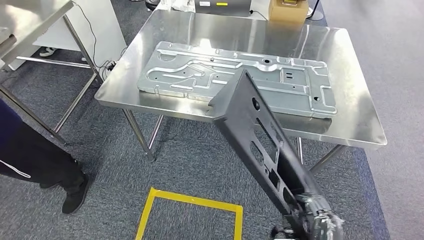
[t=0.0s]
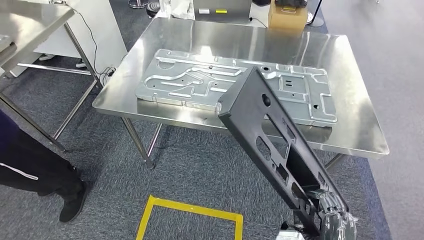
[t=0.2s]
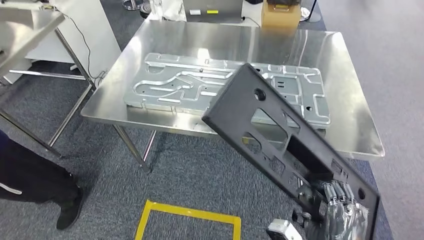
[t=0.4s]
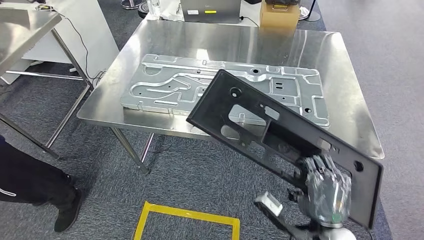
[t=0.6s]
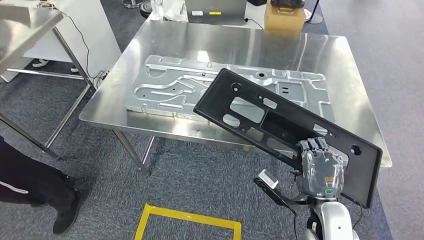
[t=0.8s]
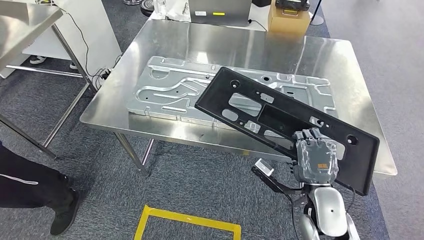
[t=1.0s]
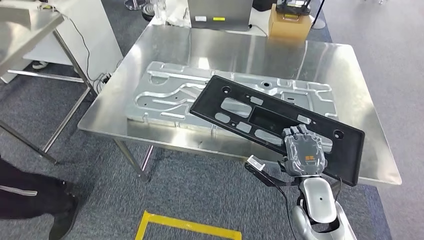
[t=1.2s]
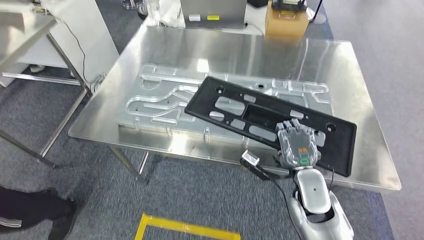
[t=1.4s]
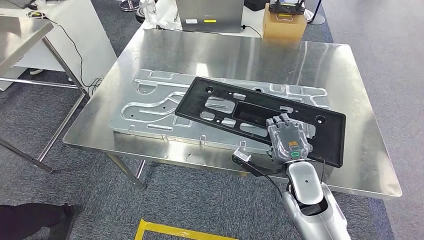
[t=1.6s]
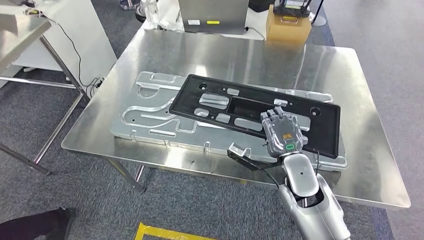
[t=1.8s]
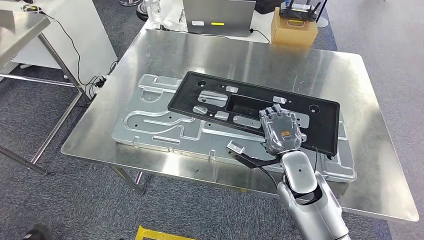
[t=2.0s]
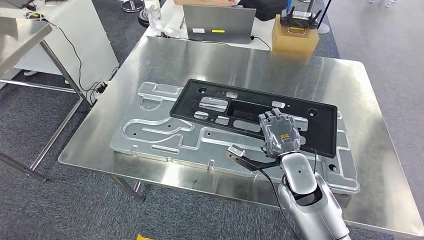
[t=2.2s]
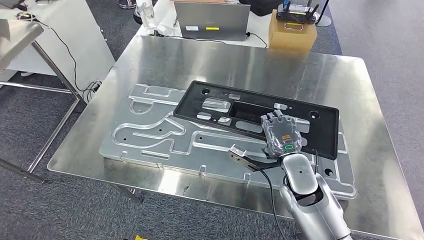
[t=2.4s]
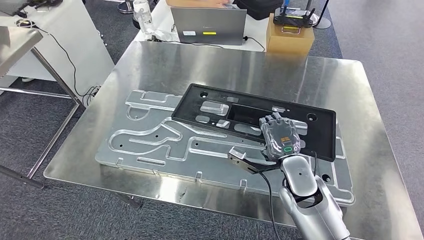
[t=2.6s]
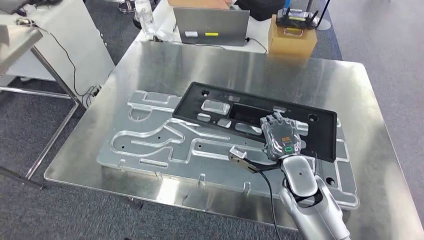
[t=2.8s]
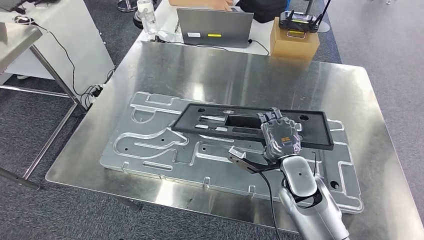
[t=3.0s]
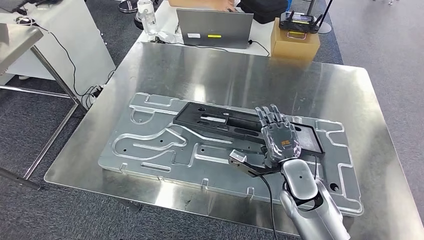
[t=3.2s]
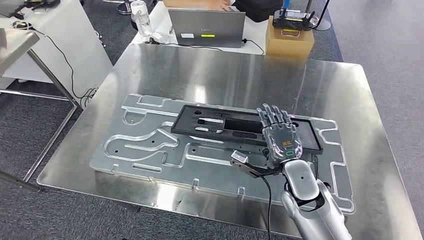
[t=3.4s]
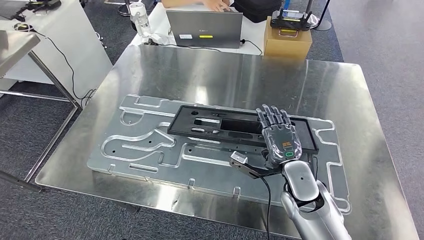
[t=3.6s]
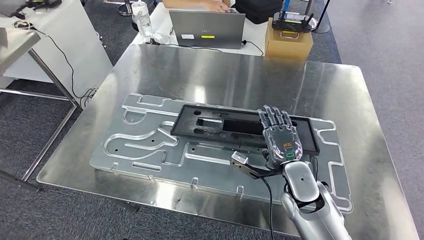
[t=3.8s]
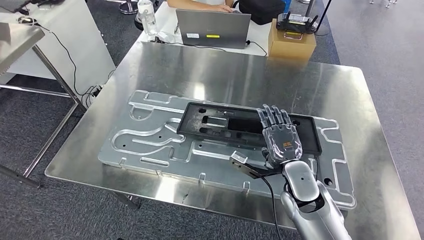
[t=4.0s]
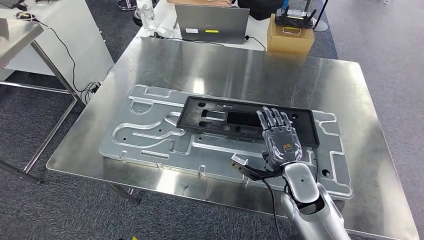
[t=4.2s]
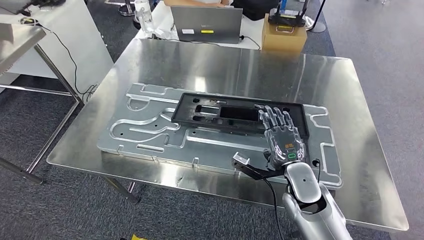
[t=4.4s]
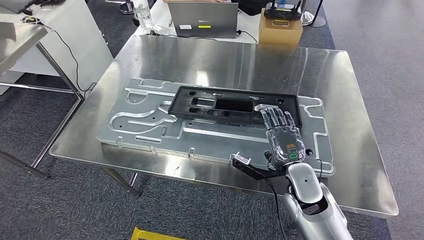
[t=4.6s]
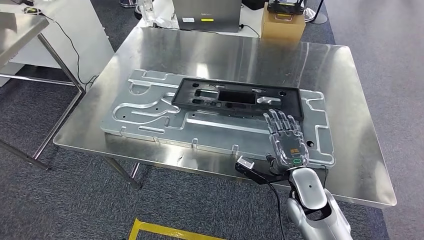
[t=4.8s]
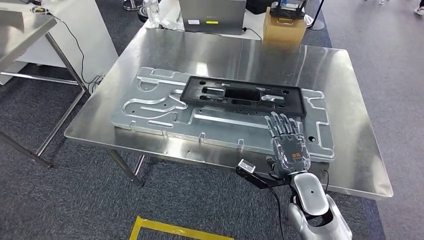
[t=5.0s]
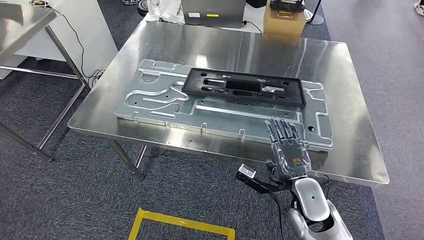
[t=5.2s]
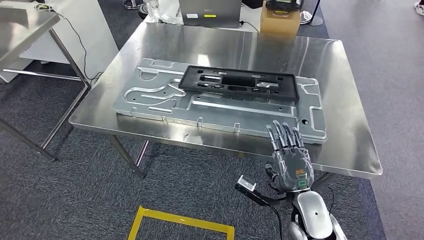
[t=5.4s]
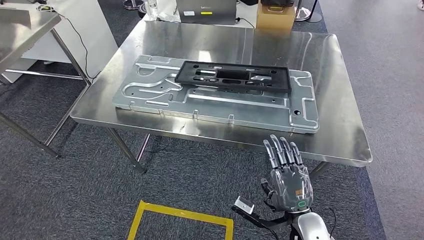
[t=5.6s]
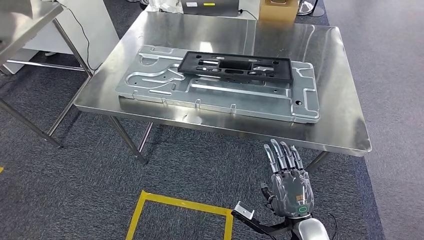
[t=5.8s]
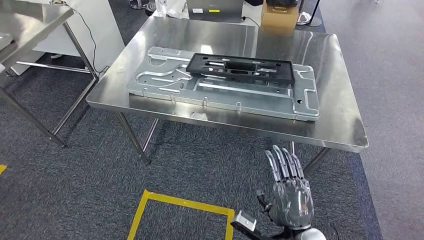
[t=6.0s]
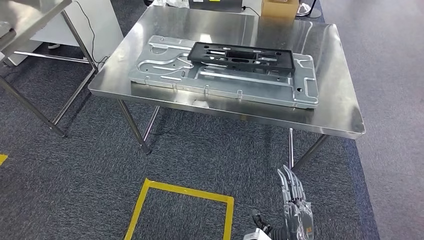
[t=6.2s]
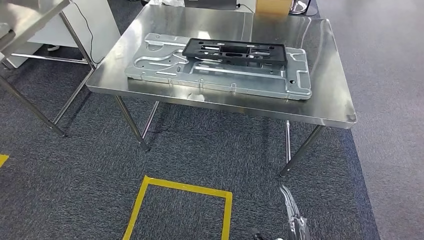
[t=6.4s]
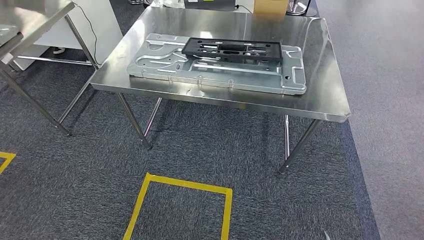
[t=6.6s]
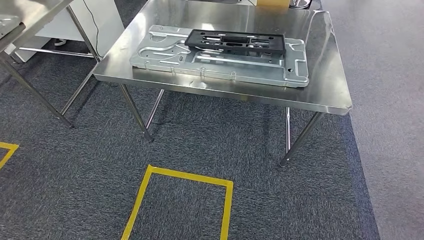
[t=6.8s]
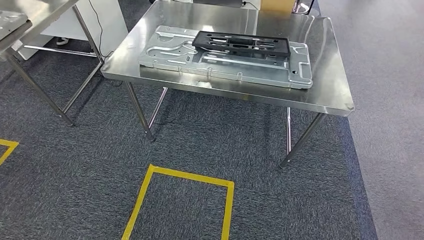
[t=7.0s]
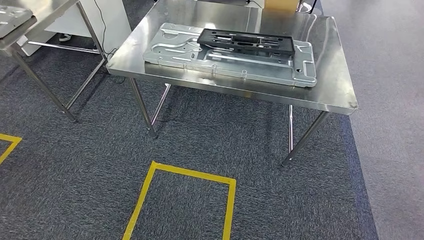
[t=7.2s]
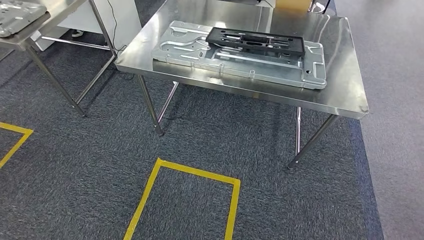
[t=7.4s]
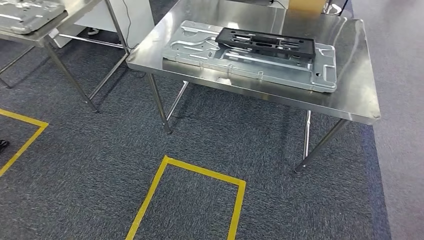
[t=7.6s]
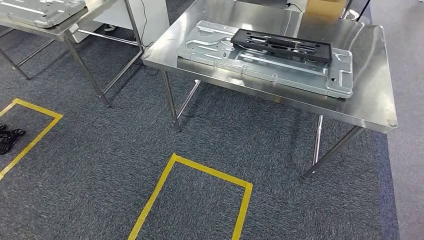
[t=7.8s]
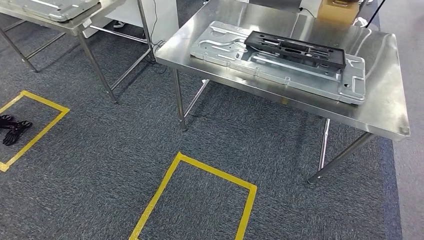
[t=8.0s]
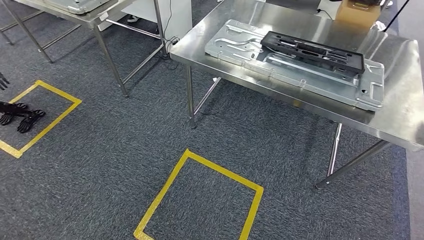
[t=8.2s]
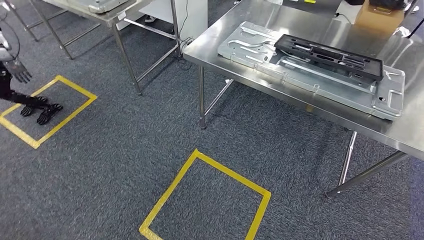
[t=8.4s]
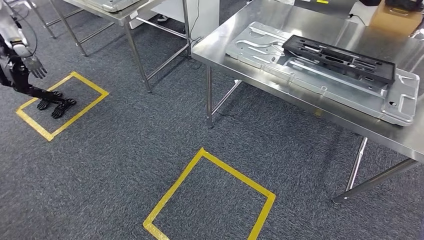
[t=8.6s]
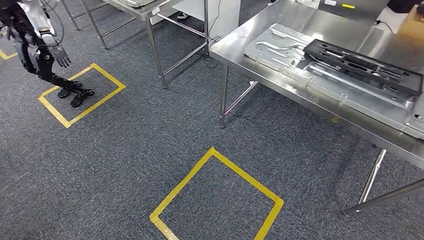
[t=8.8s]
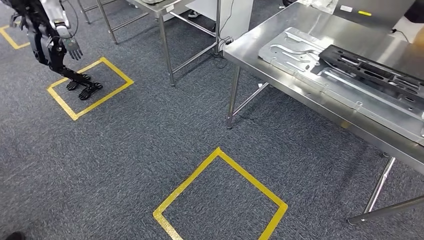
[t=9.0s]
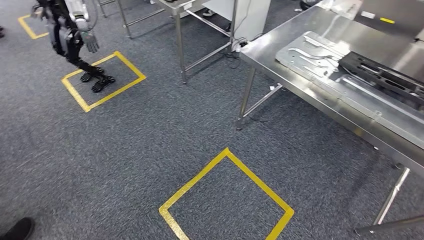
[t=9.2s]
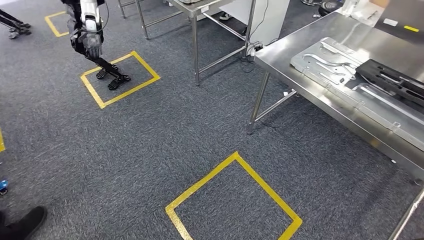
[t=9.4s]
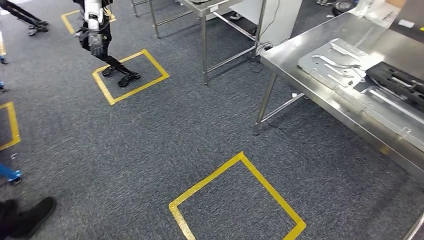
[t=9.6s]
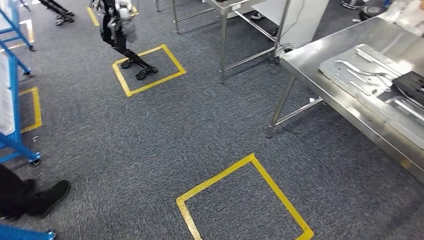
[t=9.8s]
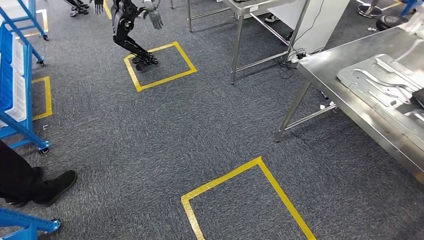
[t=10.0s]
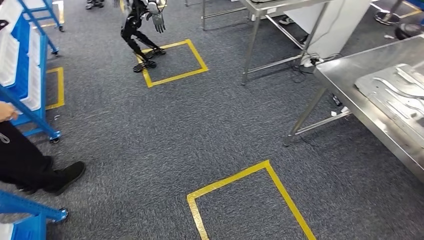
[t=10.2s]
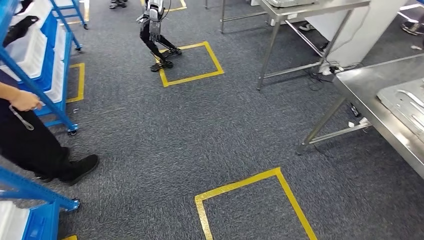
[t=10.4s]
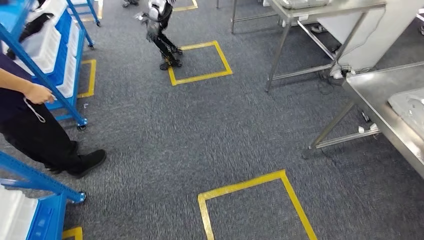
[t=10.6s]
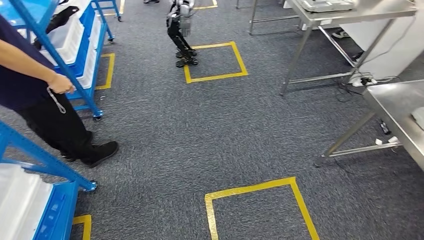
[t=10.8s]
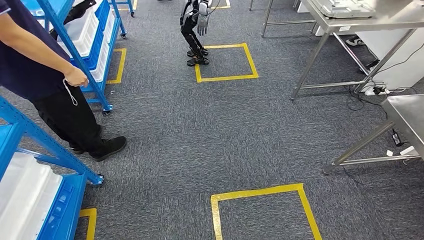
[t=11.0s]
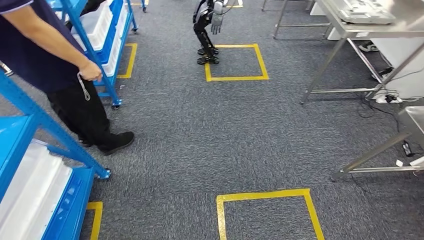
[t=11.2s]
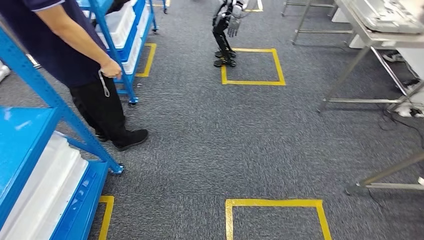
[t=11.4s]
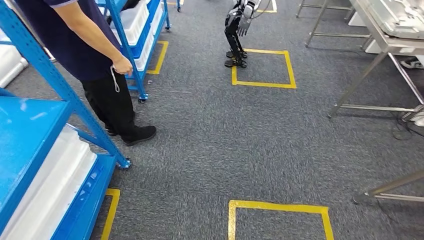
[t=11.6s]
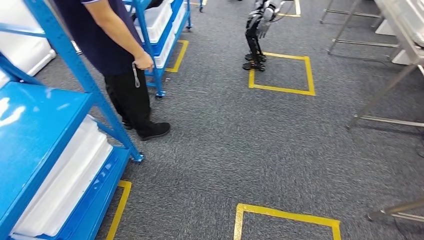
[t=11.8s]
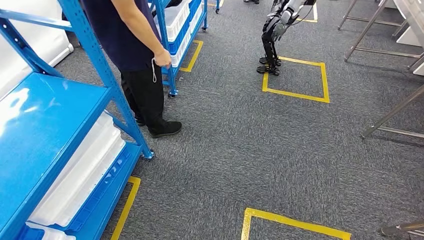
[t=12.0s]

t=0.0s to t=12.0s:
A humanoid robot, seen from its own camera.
Step, t=2.8s to t=6.2s: Insert the large material into the corresponding slot on the workbench.

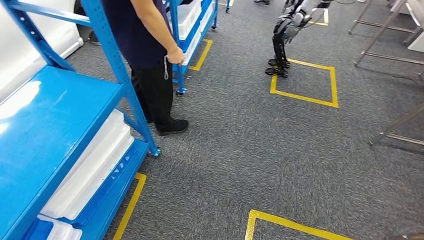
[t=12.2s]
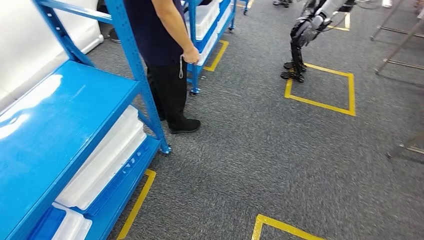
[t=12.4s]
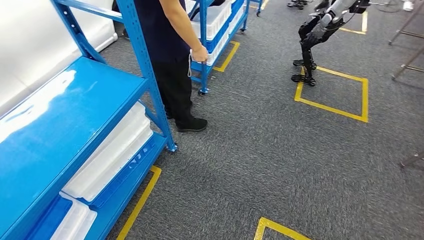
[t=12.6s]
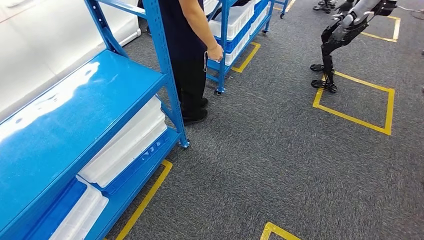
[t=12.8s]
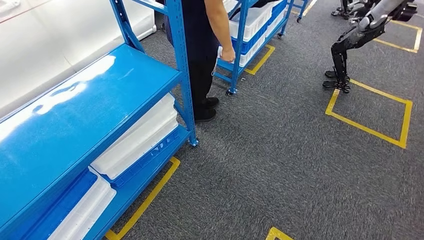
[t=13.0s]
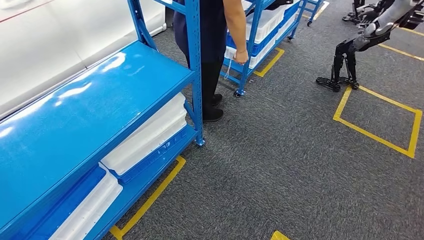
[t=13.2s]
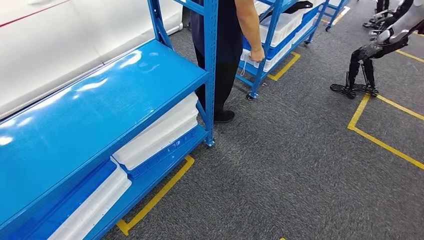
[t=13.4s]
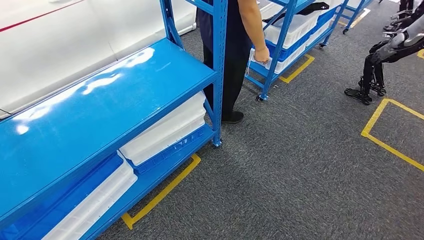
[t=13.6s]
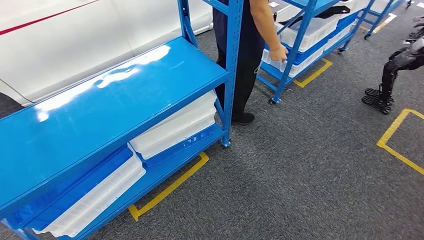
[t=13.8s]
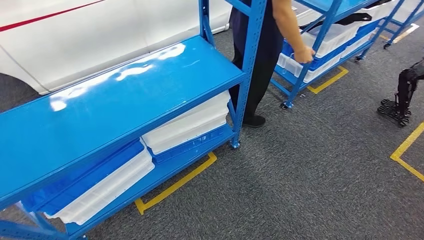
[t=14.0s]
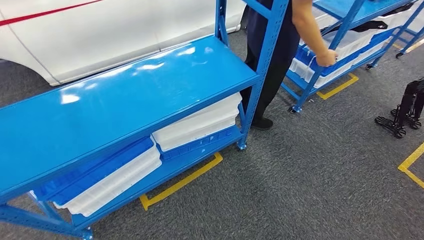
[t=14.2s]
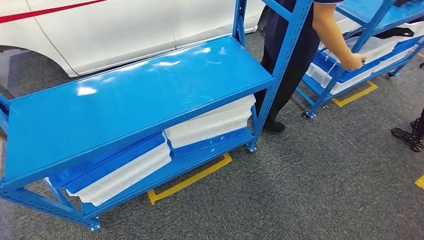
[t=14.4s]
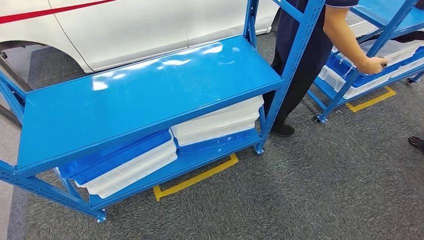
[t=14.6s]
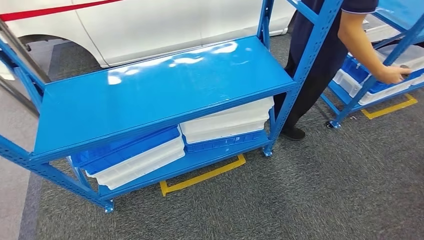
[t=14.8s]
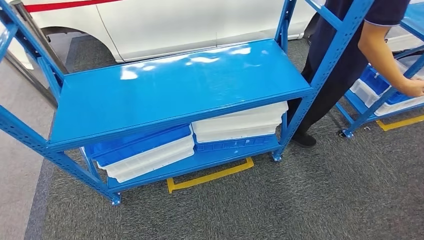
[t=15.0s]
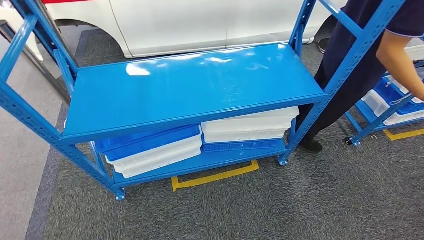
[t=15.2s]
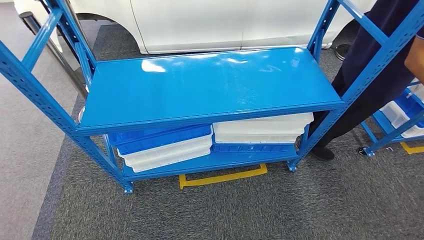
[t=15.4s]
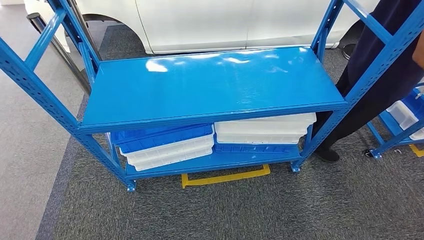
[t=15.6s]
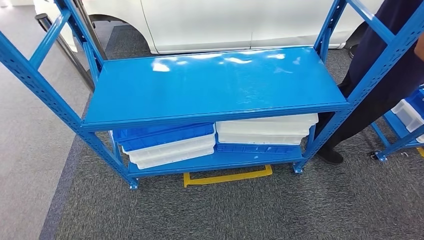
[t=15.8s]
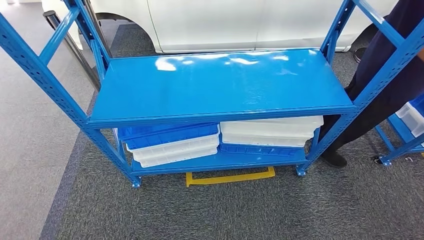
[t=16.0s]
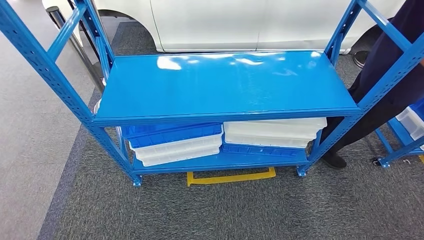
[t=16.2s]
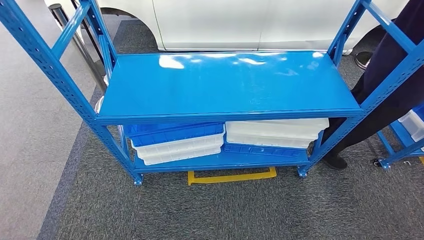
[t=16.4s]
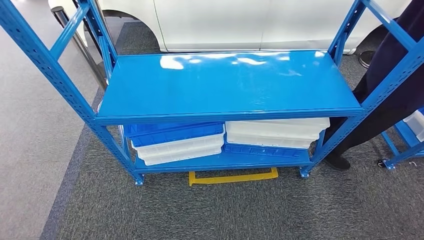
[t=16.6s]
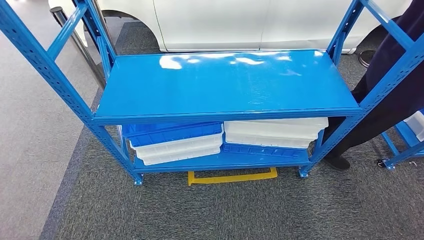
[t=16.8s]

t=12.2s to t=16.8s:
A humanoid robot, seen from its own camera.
Step, t=12.2s to t=16.8s: Move to the initial position of the shelf.
